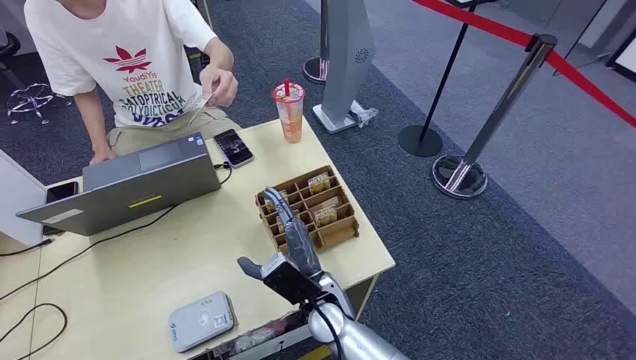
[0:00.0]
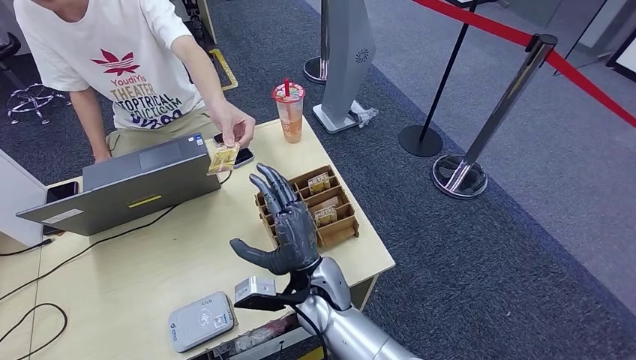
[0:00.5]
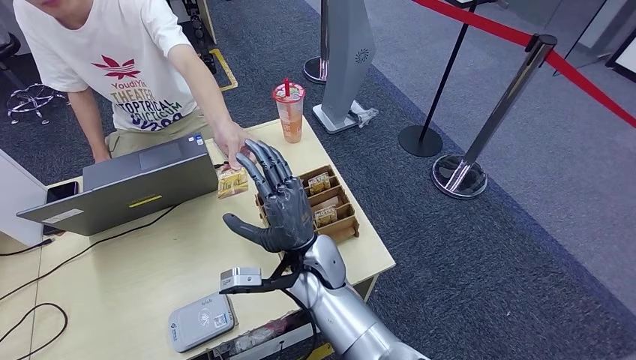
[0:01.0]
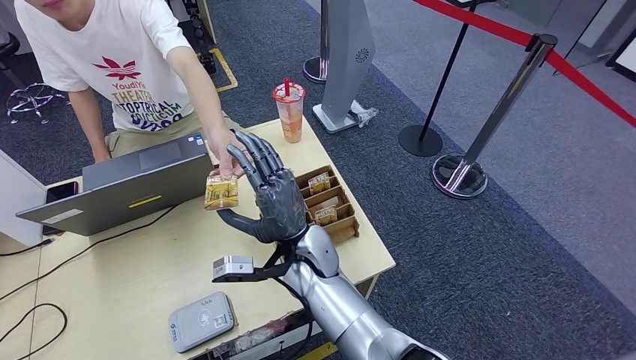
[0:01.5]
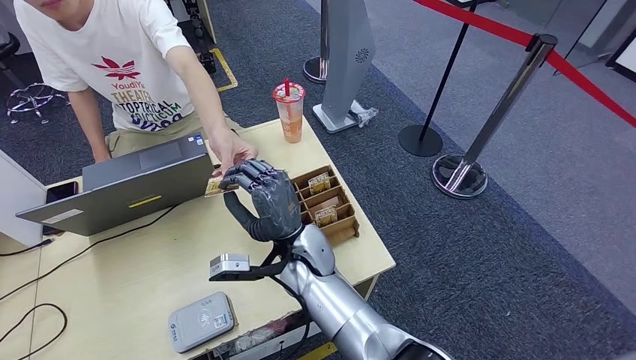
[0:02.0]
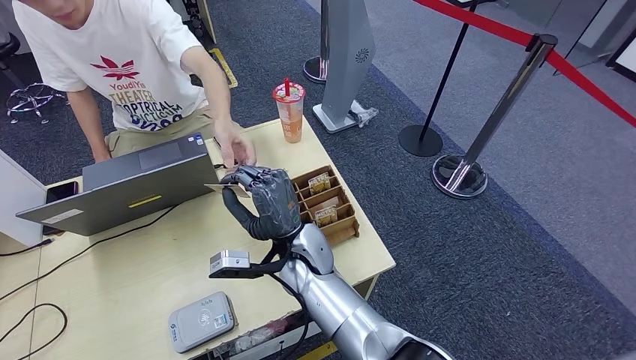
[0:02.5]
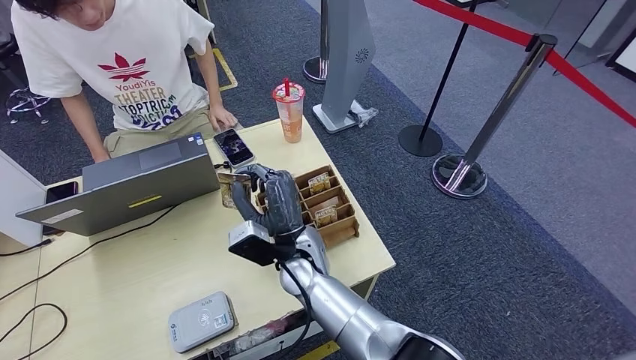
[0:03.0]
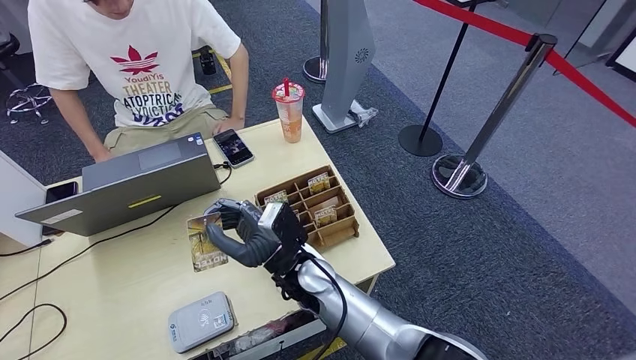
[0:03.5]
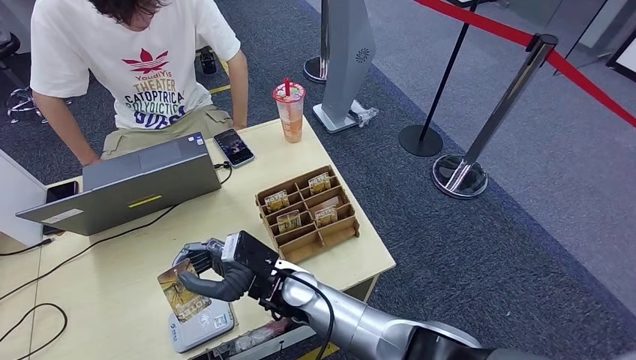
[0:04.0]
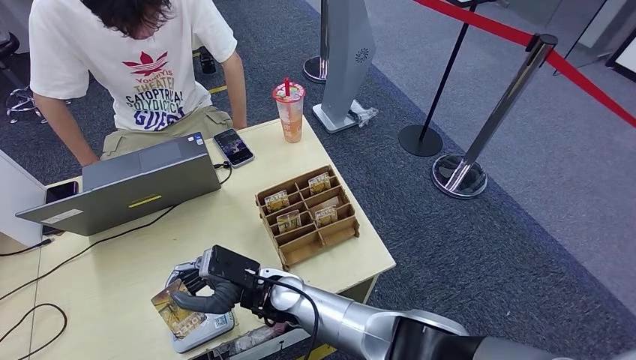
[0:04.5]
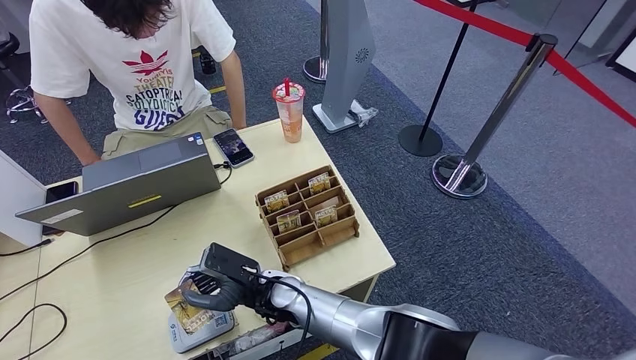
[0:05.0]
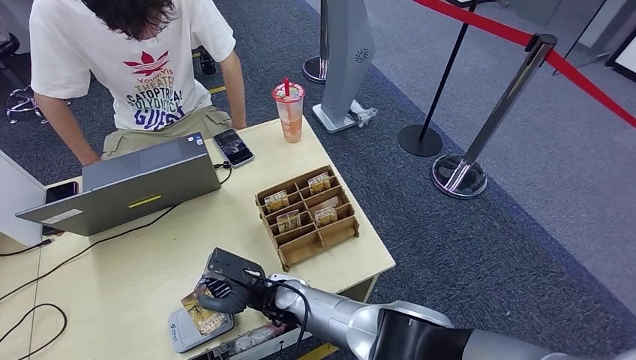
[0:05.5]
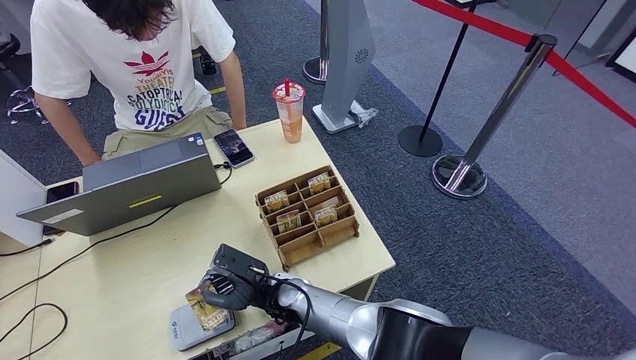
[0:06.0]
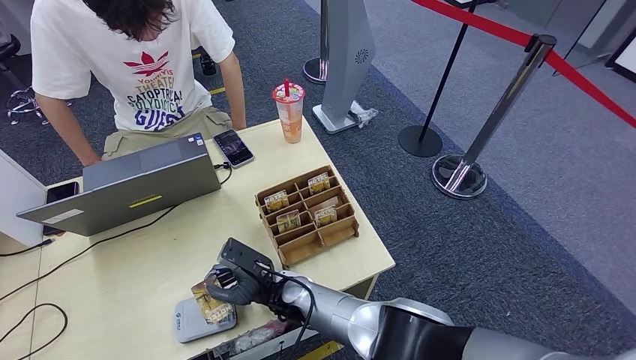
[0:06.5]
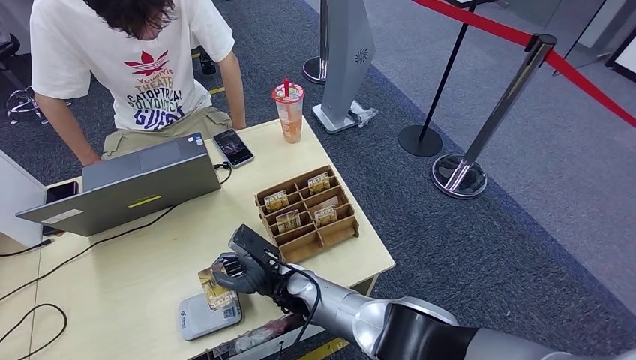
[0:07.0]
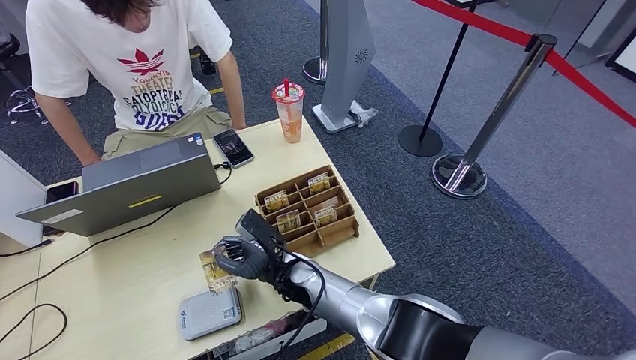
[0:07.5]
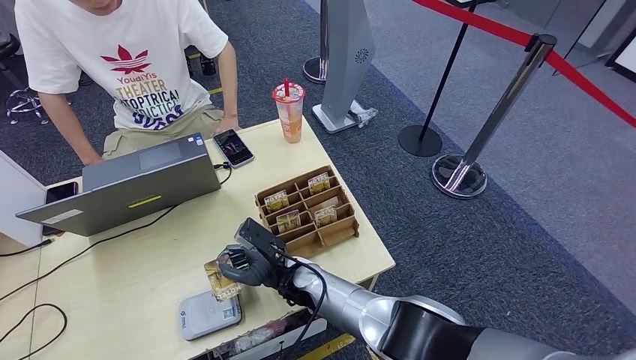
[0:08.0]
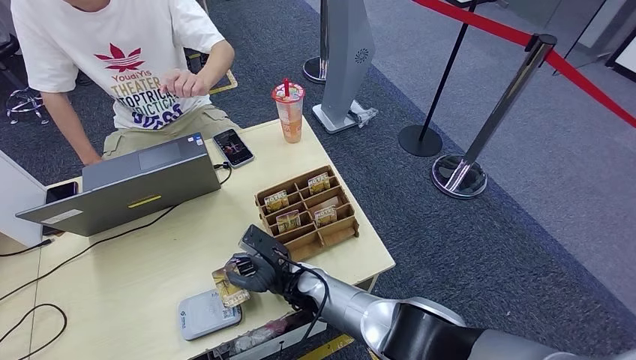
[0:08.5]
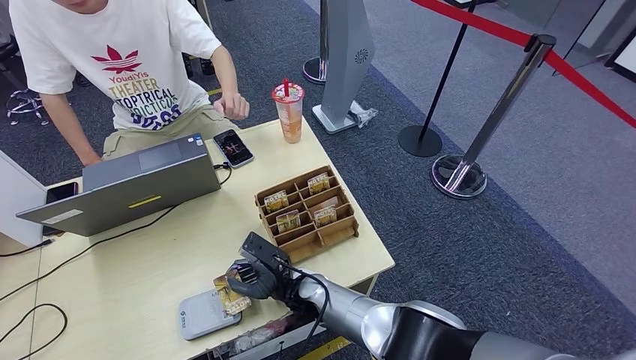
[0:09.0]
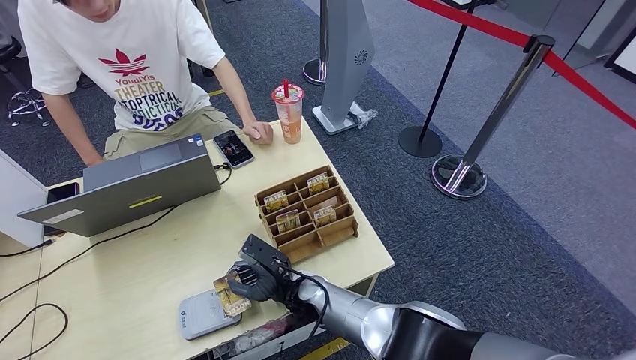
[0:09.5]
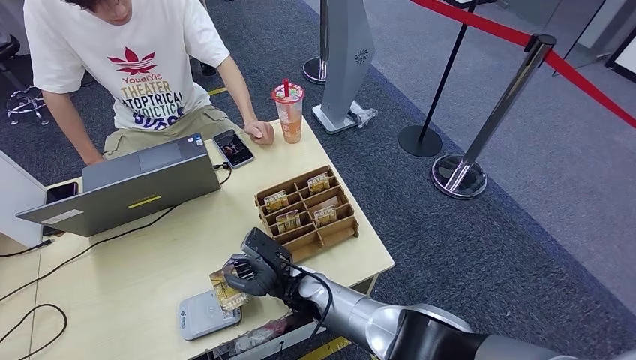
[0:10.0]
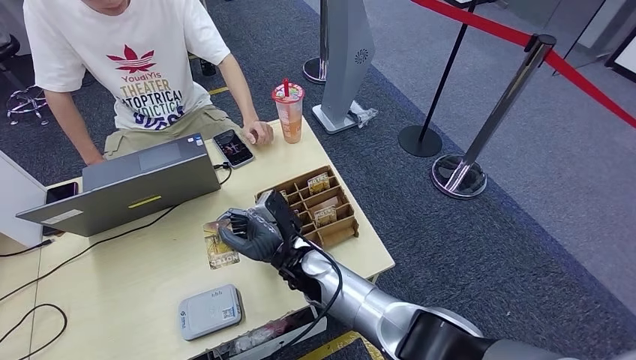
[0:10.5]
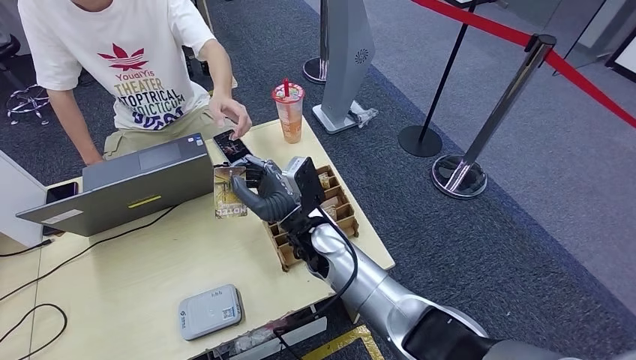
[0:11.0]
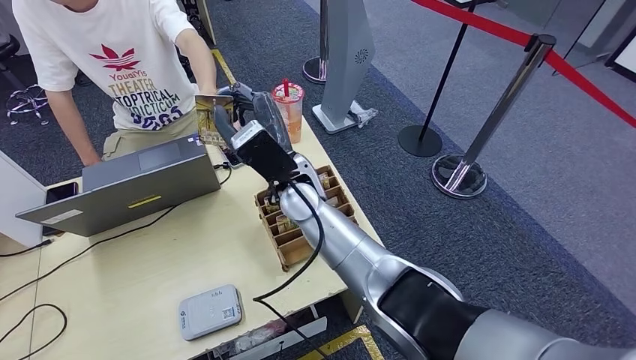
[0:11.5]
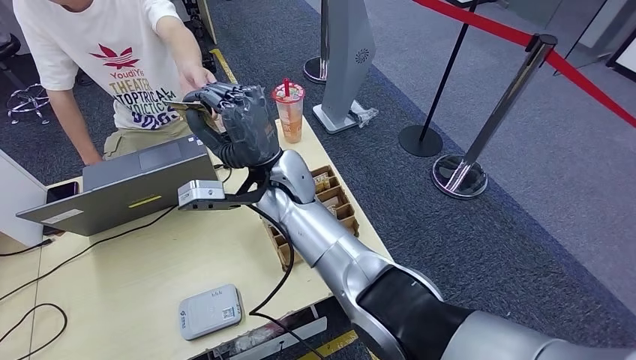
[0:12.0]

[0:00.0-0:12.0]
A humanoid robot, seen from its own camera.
Step, 0:00.0 to 0:02.5: Take the ID card from the person's hand.
Step, 0:03.0 to 0:06.5: Place the ID card on the card reader.
0:02.0 to 0:04.0: The right hand changes place by about 5 cm.
0:04.0 to 0:06.0: The right hand is displaced downward by some 10 cm.
0:06.0 to 0:10.0: The hands stay close to where they were, moving slightly.
0:10.0 to 0:12.0: The right hand shifts about 25 cm upward and forward.

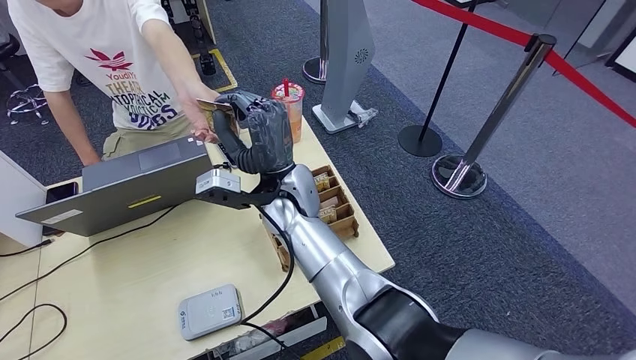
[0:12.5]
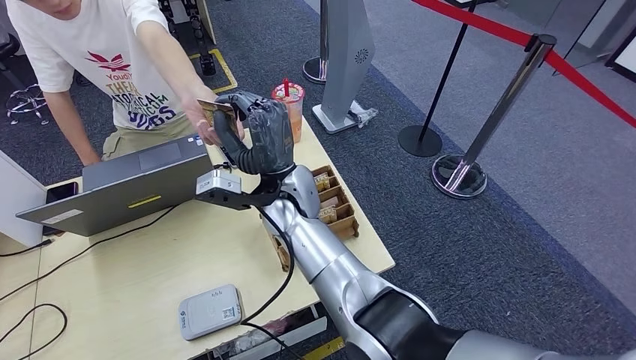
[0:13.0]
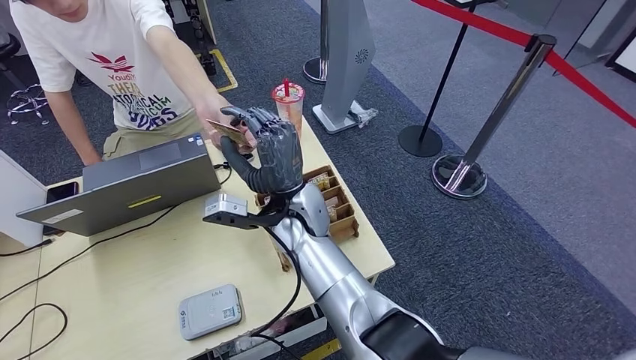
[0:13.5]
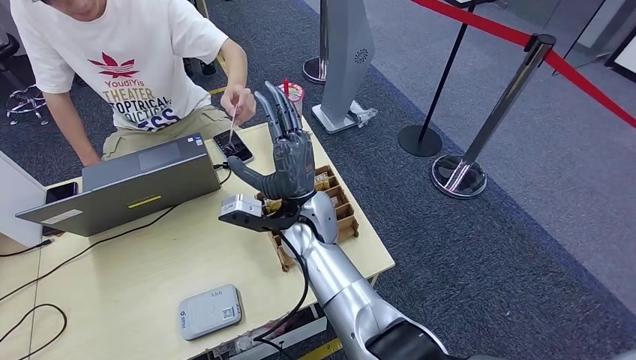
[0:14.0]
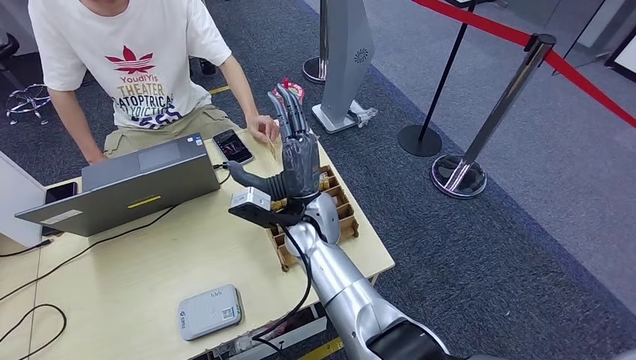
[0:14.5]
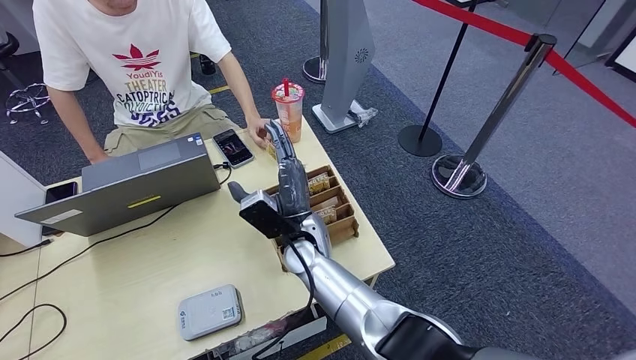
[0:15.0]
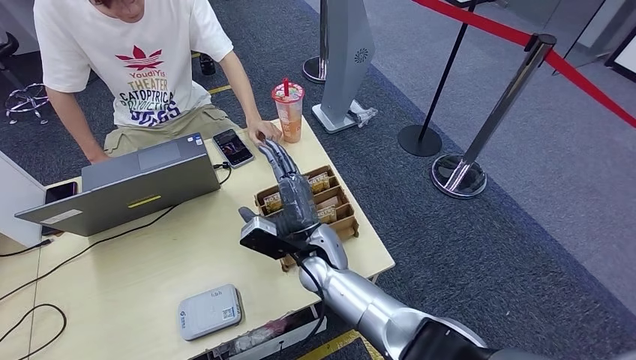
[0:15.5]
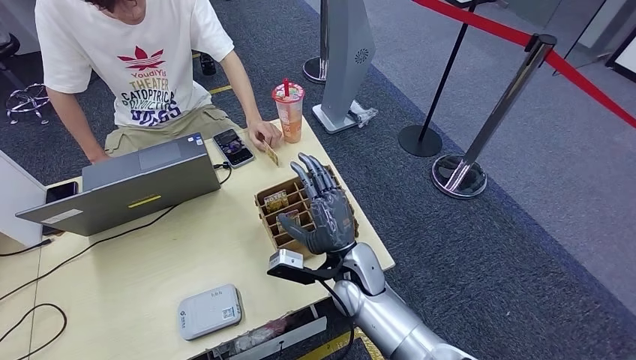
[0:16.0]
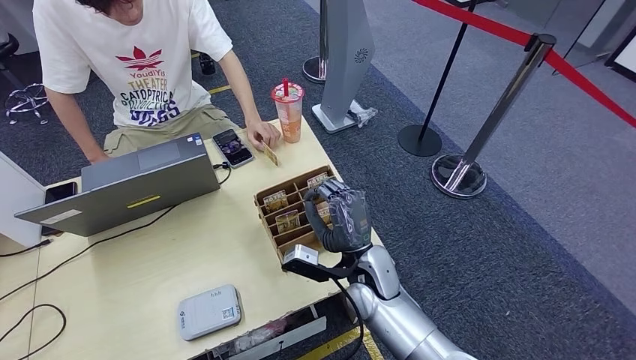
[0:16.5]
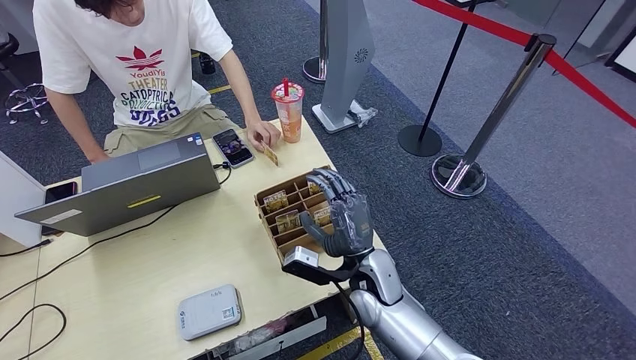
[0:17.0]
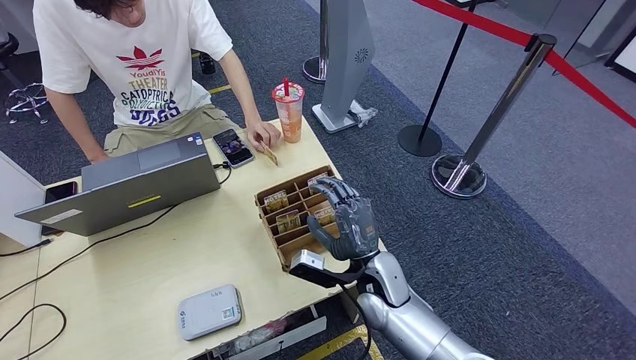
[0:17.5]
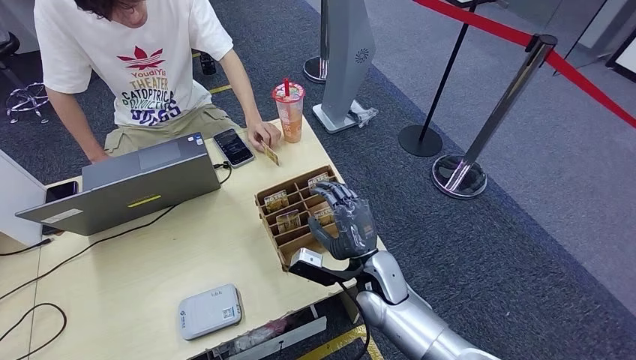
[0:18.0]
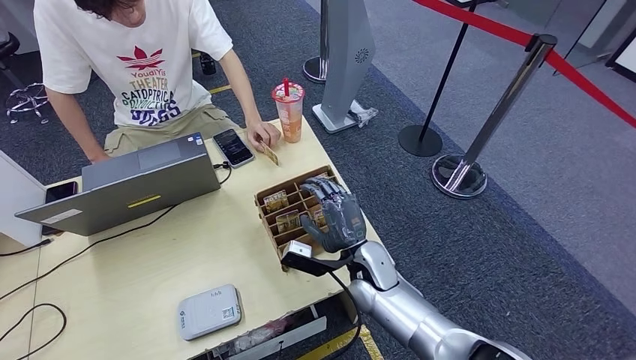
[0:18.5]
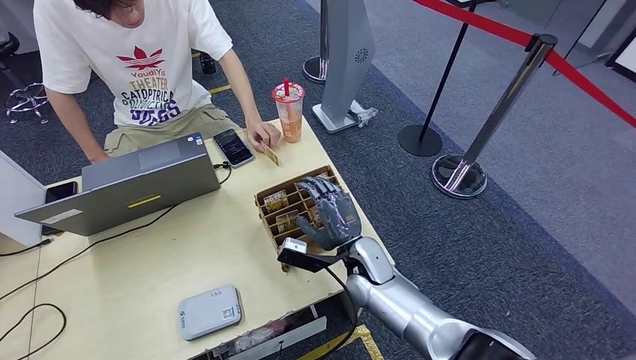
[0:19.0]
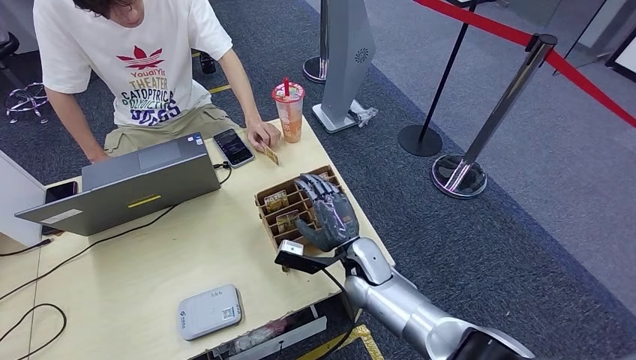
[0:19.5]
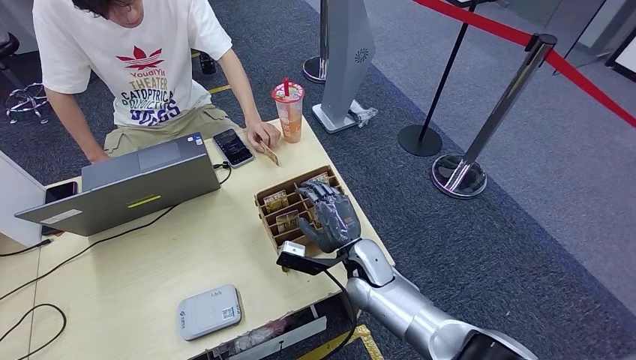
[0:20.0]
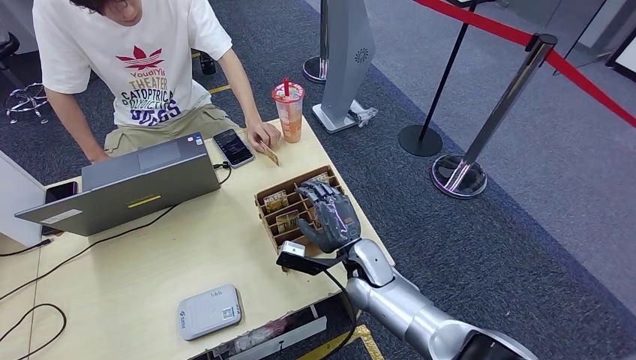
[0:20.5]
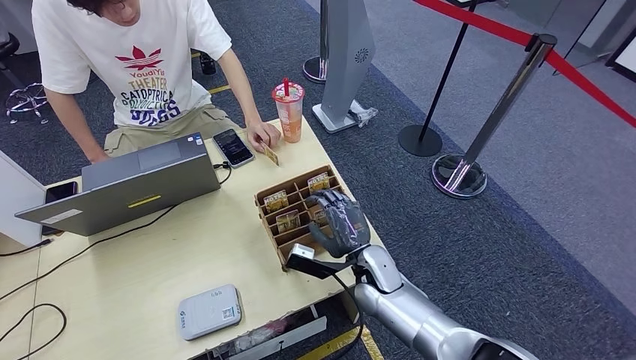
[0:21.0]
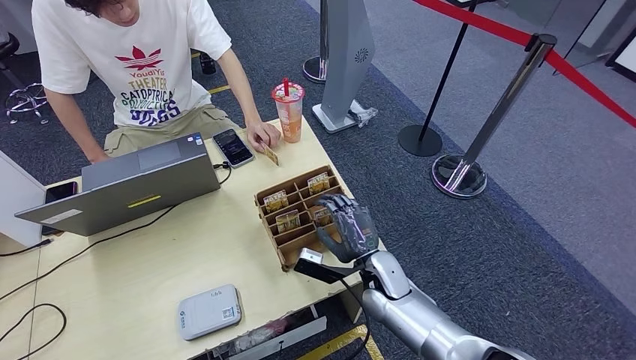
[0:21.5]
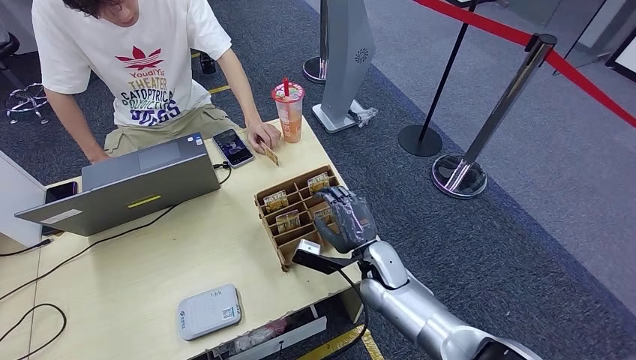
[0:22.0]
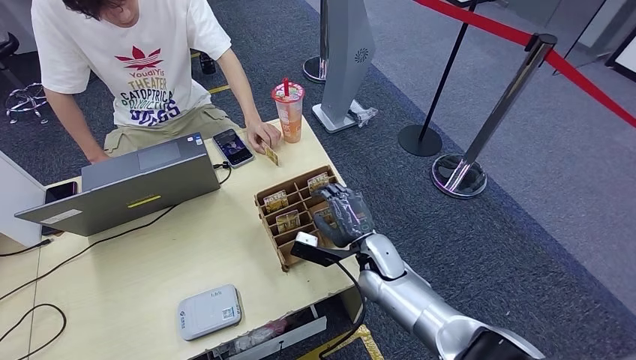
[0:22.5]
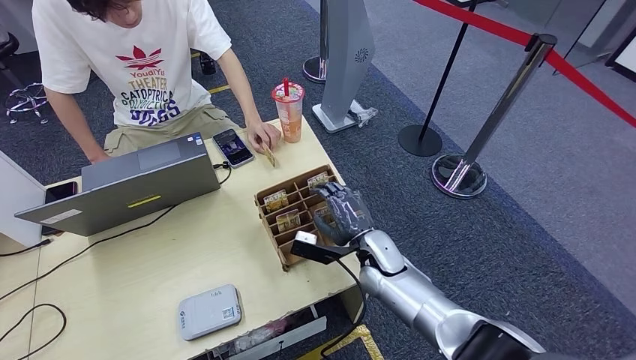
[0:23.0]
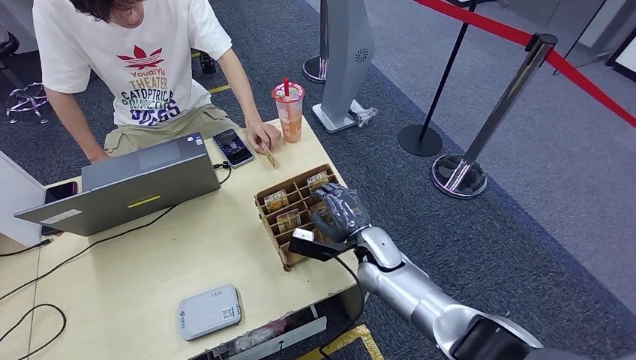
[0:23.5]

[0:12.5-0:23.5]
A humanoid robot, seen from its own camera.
0:12.5 to 0:14.5: The right hand moves downward, approximately 5 cm; the left hand ends up about 5 cm from where it was.
0:14.5 to 0:16.0: The right hand is displaced backward, downward and to the right by about 15 cm.
0:16.0 to 0:18.0: The right hand changes place by roughly 5 cm.
0:18.0 to 0:21.5: The hands make only small movements.
0:21.5 to 0:23.5: The right hand moves some 5 cm.
